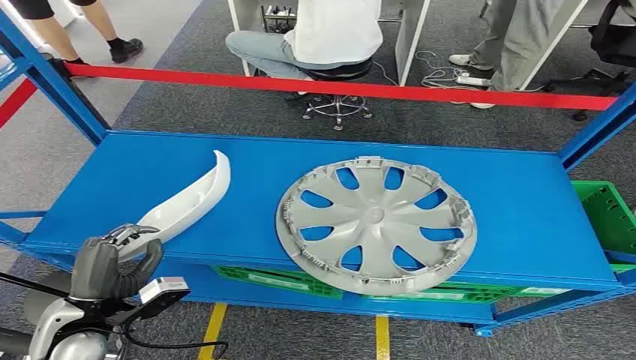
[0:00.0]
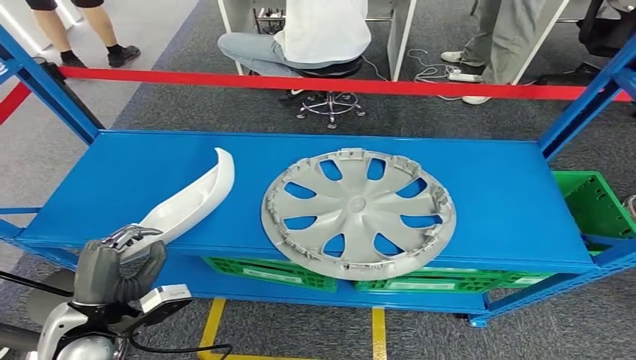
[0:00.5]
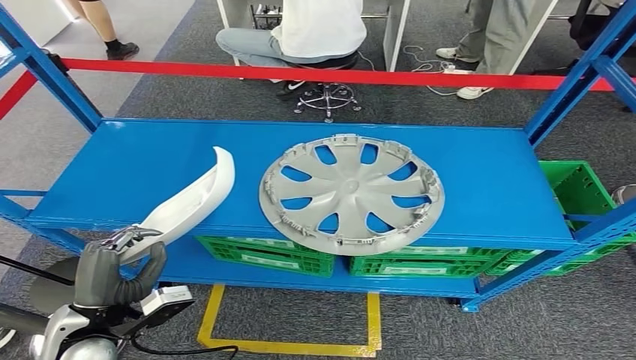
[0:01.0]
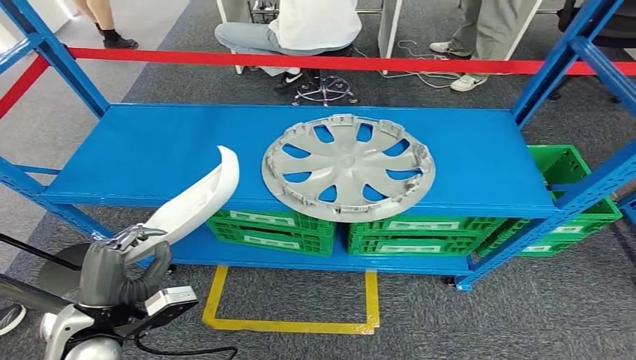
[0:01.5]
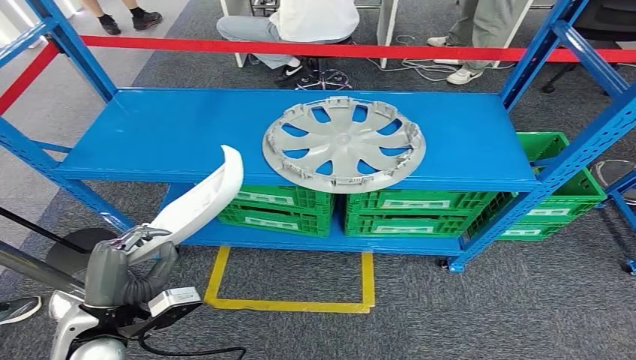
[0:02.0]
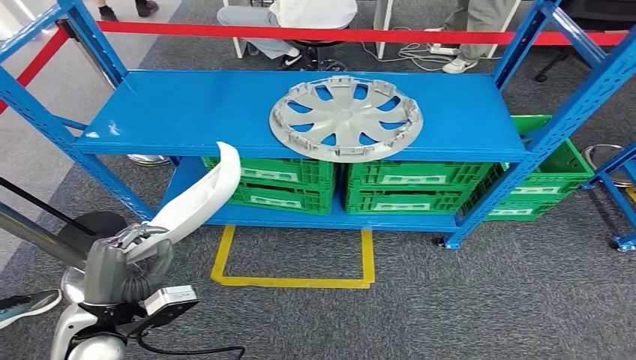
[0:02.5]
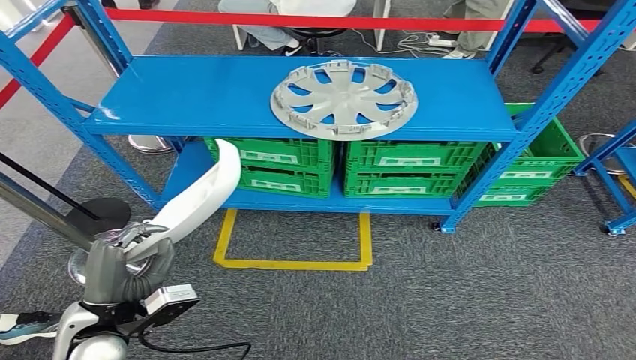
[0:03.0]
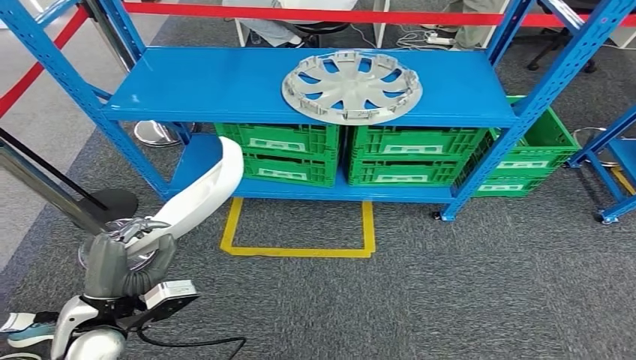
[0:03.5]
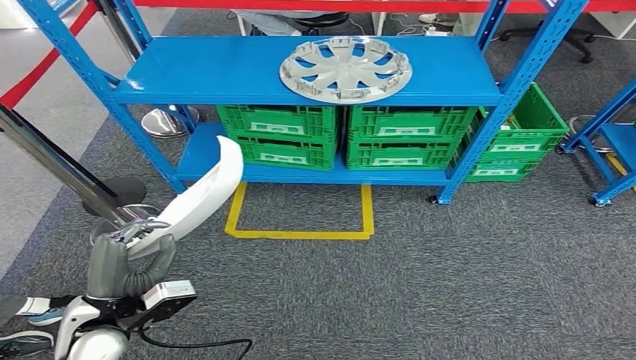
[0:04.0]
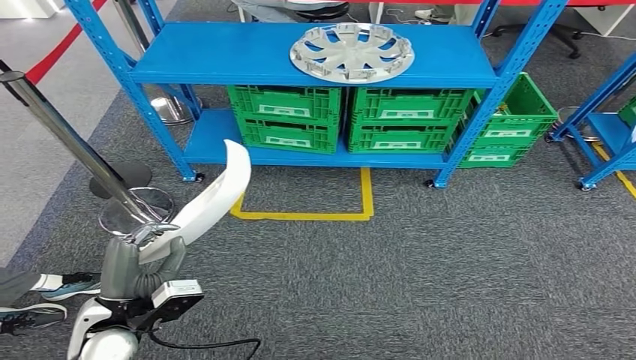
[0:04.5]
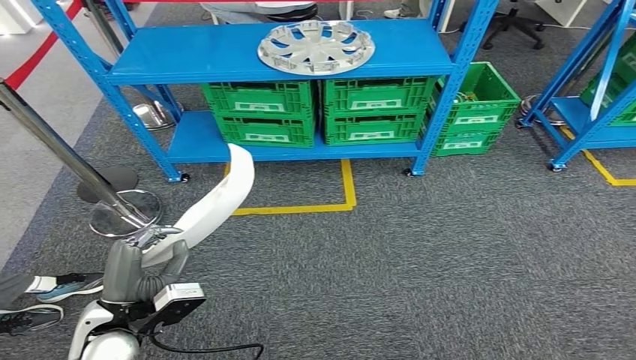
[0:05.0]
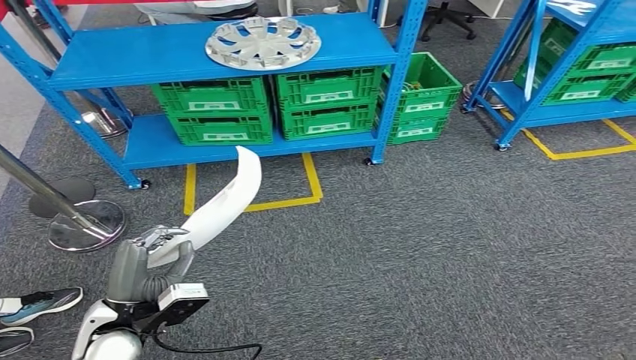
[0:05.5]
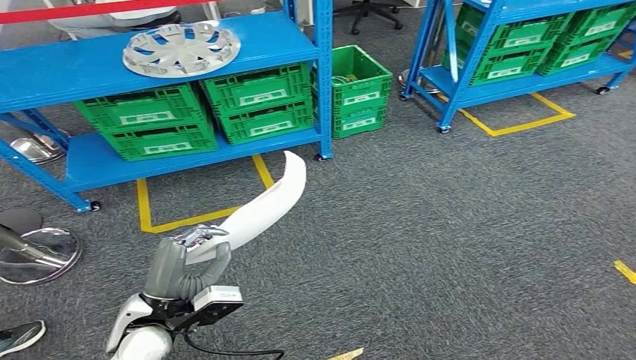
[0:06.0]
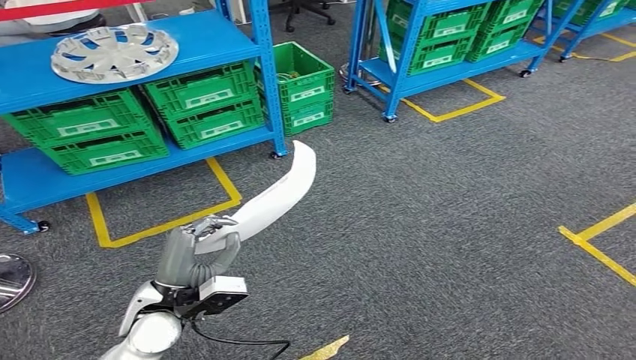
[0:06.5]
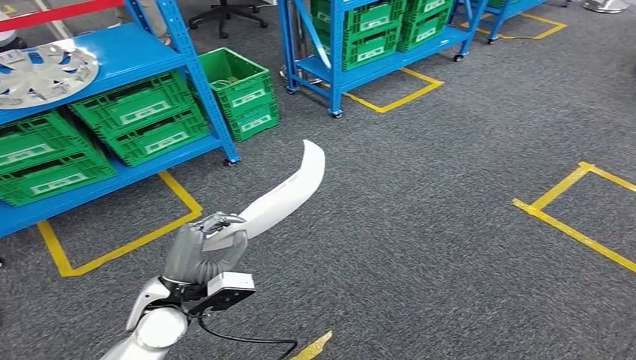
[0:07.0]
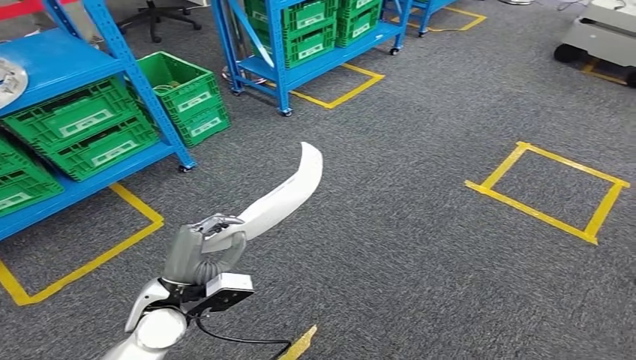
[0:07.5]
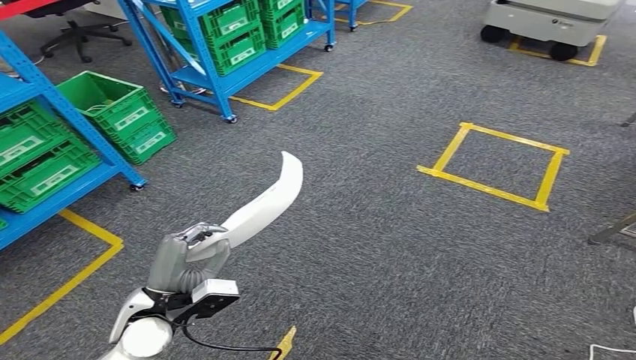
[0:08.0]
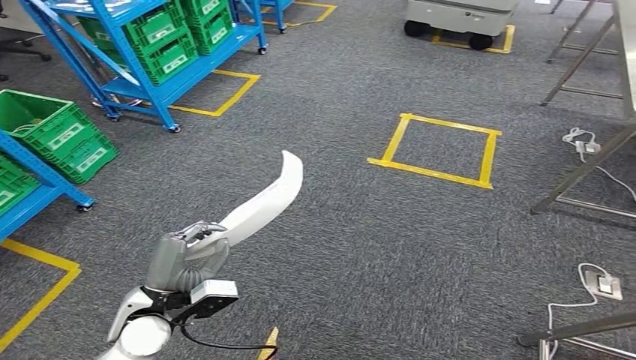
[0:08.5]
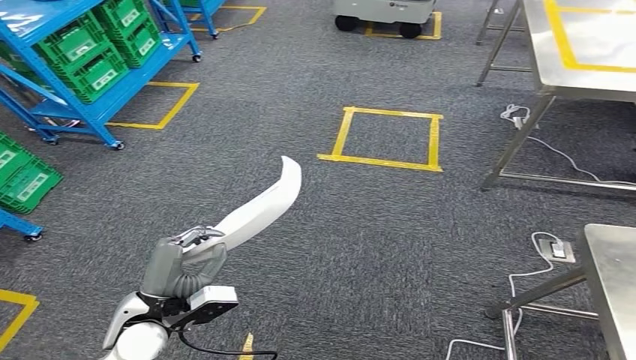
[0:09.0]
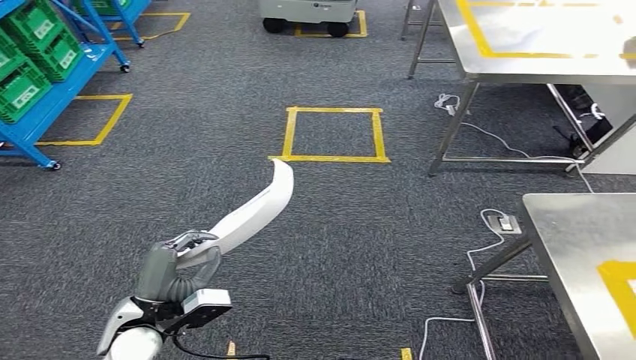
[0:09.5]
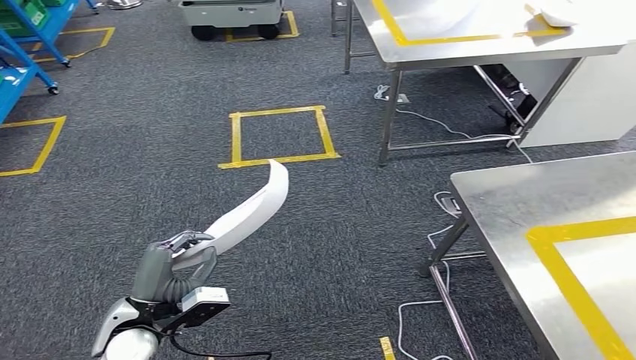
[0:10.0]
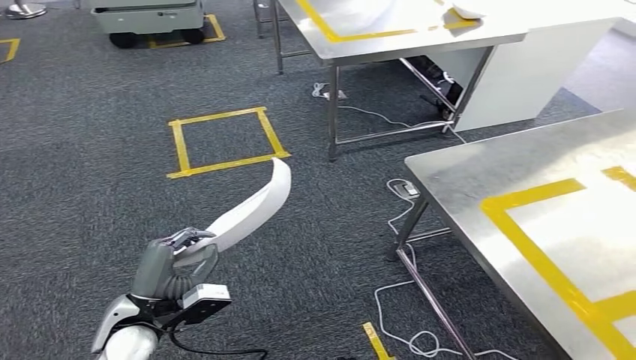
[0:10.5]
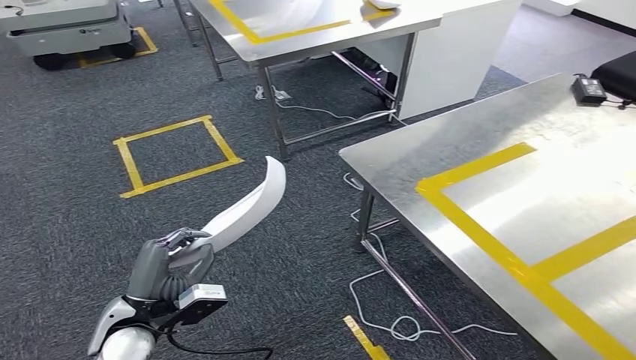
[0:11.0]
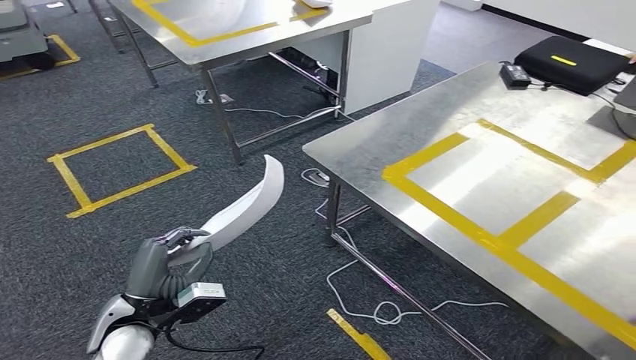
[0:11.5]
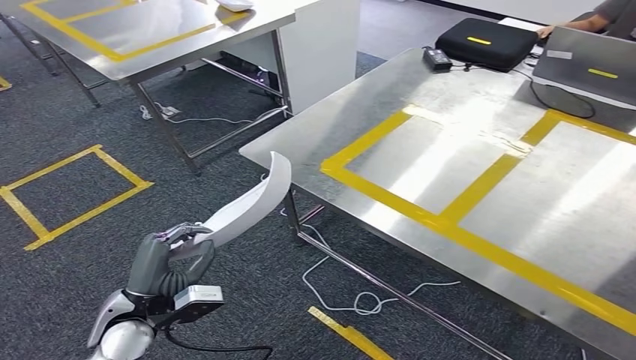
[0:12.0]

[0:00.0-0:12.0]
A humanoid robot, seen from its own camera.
Step, 0:00.0 to 0:03.5: Pick up the small component from the shelf.

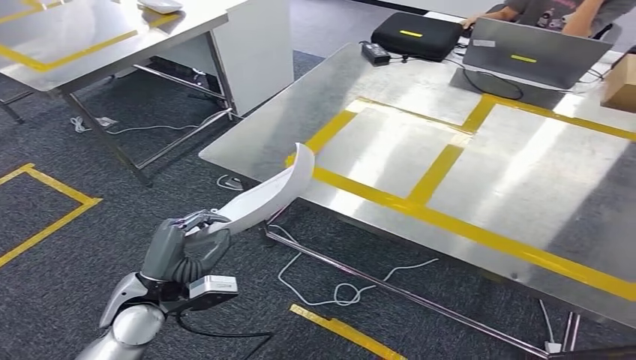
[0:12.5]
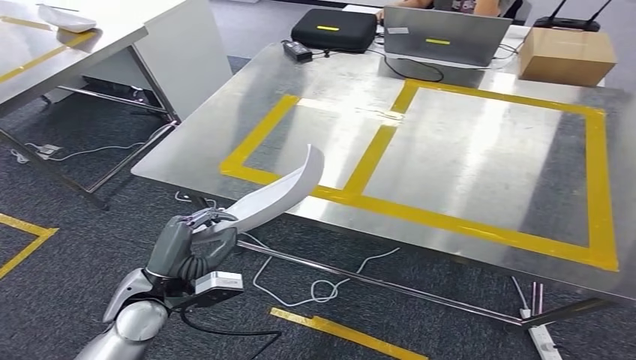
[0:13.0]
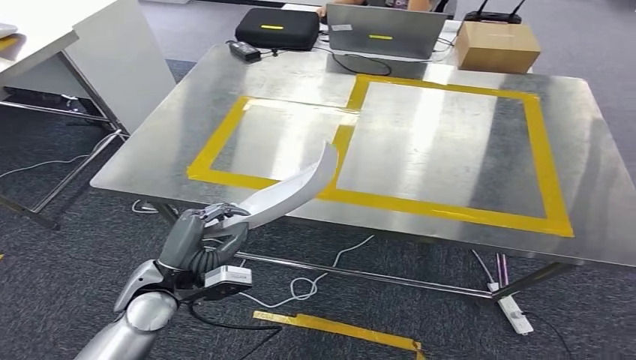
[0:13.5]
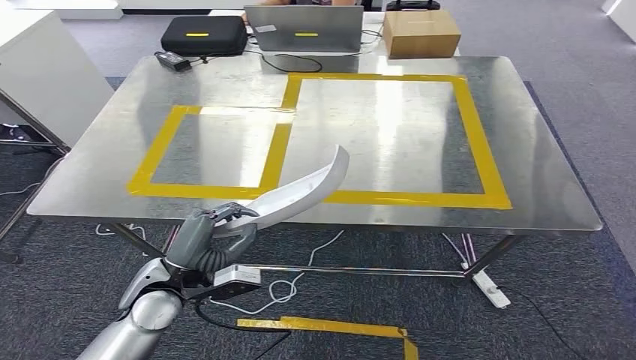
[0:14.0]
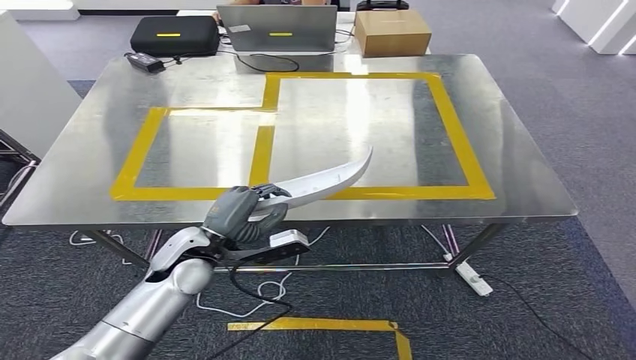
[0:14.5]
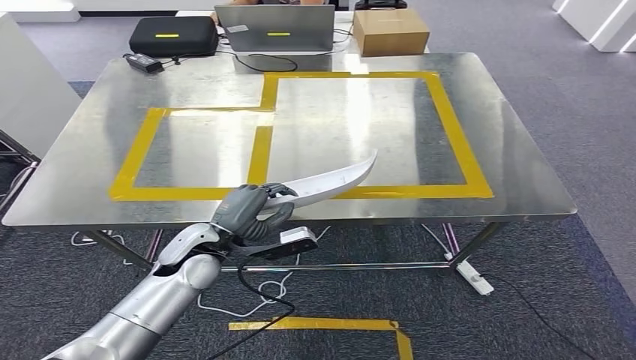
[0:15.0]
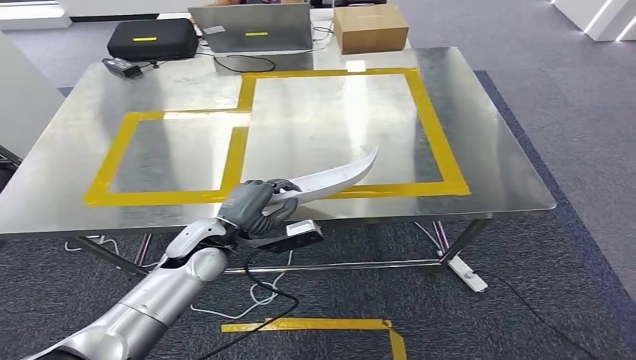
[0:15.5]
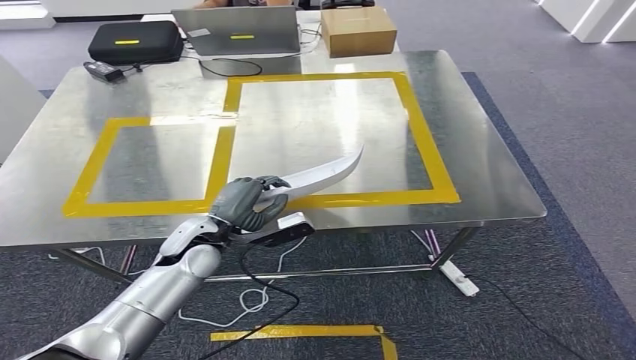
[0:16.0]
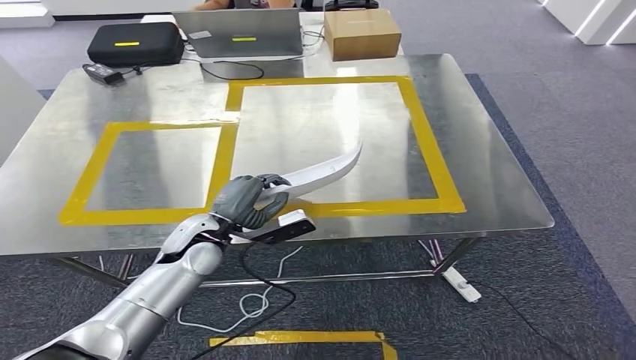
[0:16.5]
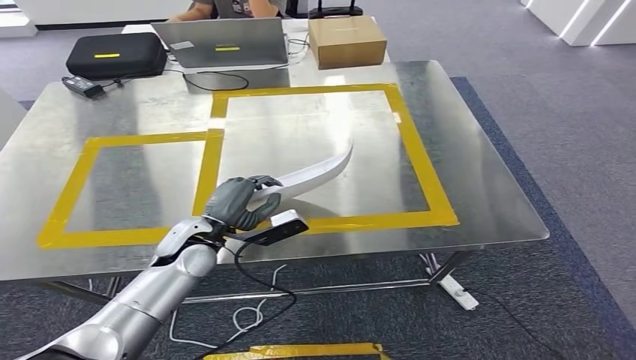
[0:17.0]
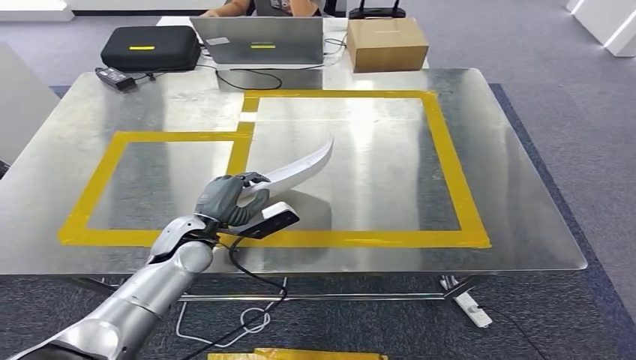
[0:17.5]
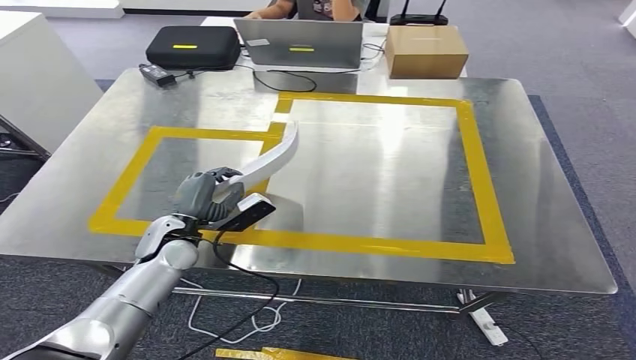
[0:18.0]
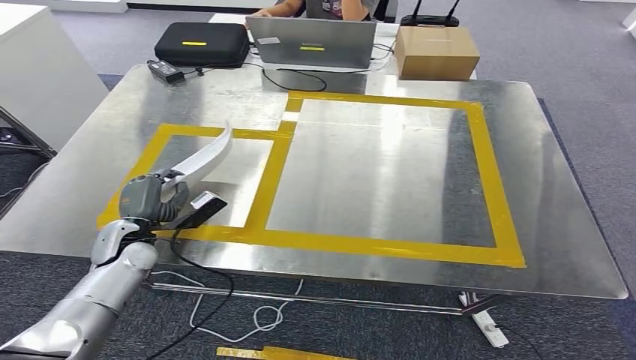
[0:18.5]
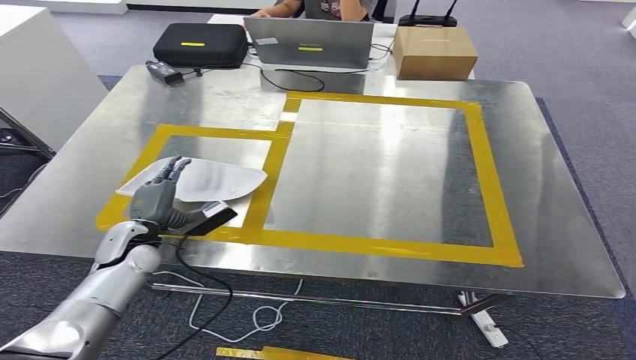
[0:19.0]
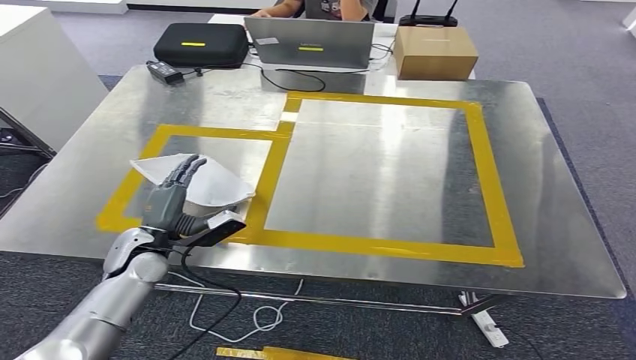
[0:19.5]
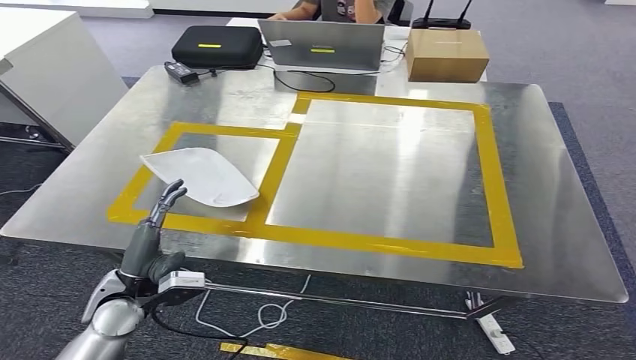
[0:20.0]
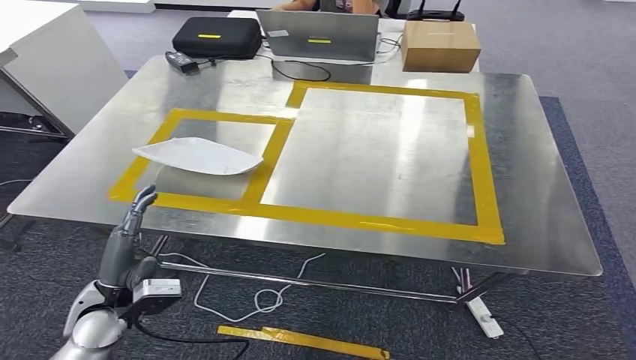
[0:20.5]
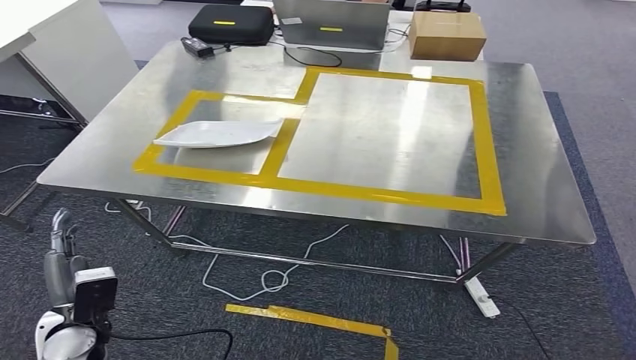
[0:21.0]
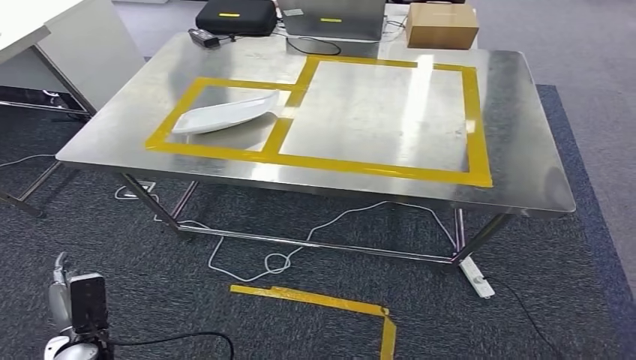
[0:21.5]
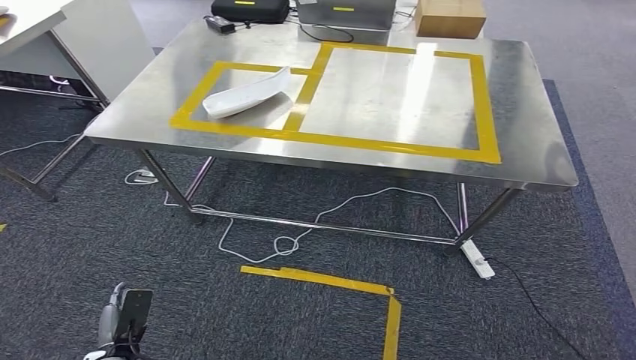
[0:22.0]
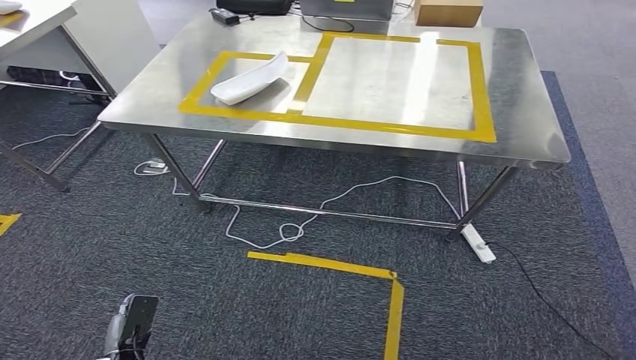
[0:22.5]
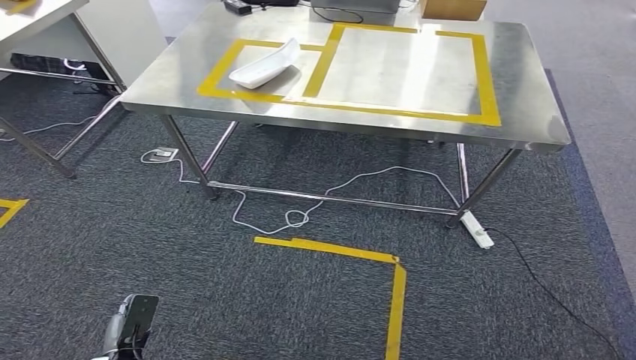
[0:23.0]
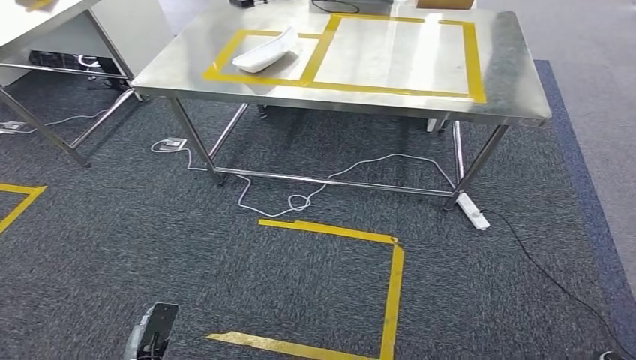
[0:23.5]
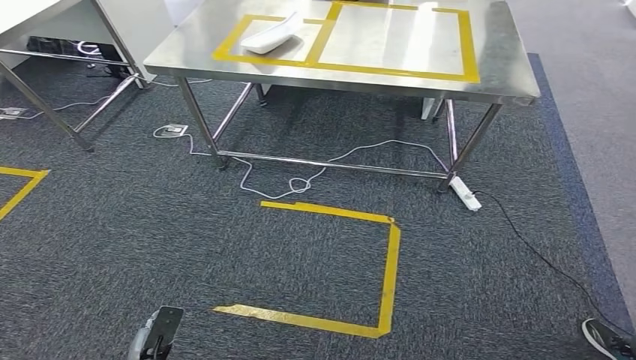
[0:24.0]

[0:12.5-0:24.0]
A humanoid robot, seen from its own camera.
Step, 0:12.5 to 0:17.0: Move the small component to the workbench.
Step, 0:17.5 to 0:23.0: Insert the small component into the corresponding slot on the workbench.
